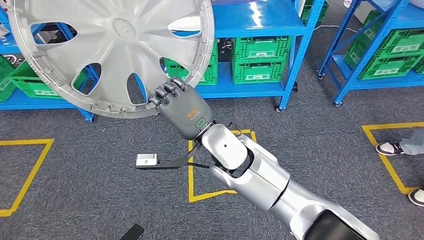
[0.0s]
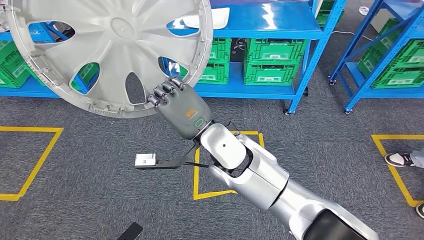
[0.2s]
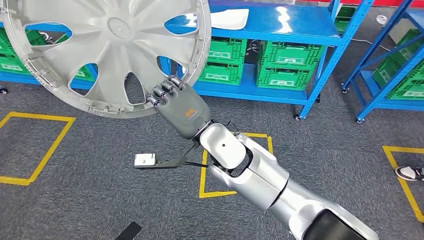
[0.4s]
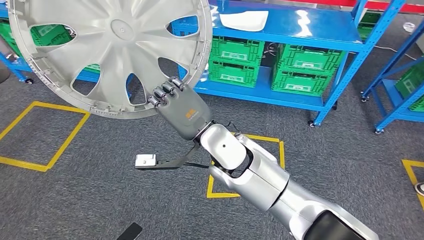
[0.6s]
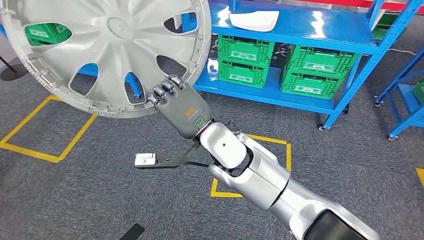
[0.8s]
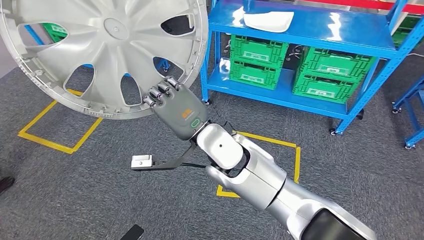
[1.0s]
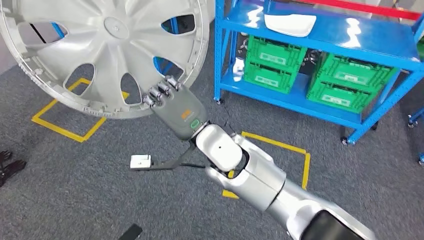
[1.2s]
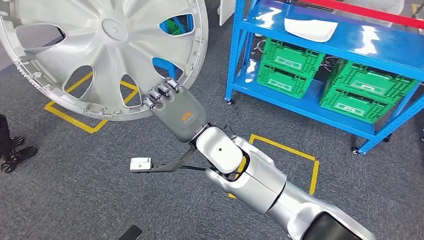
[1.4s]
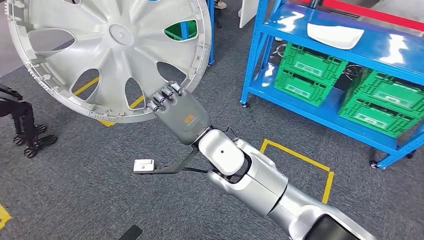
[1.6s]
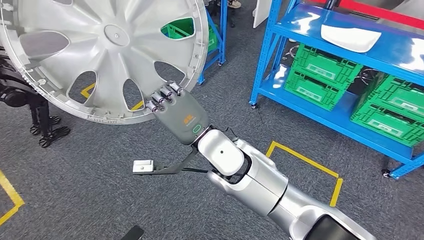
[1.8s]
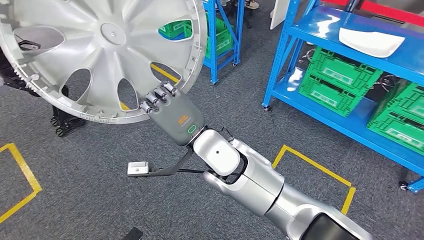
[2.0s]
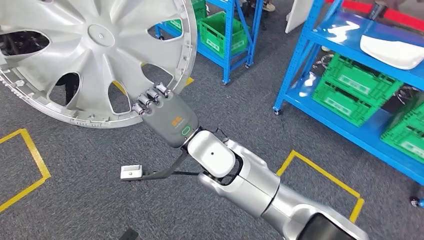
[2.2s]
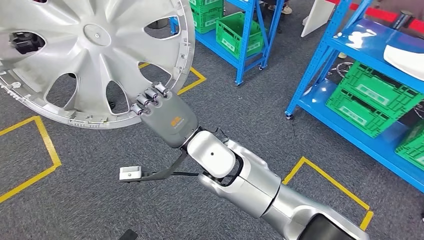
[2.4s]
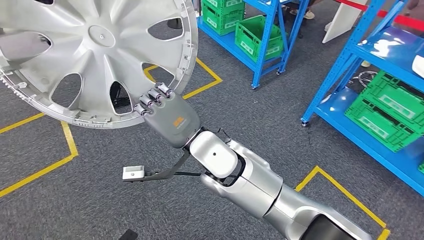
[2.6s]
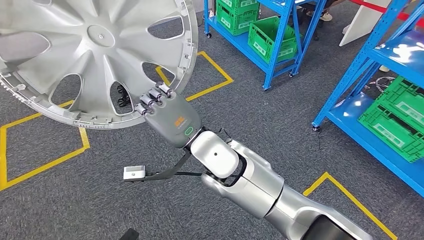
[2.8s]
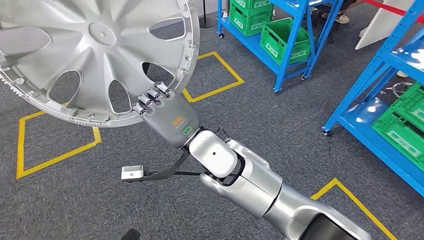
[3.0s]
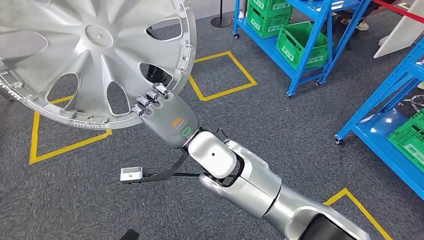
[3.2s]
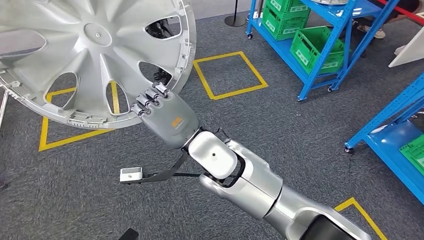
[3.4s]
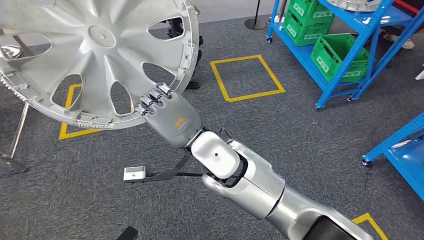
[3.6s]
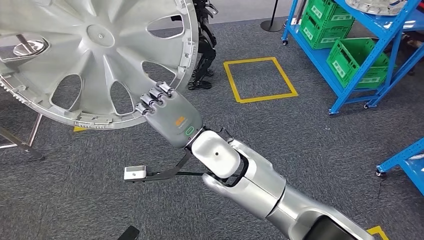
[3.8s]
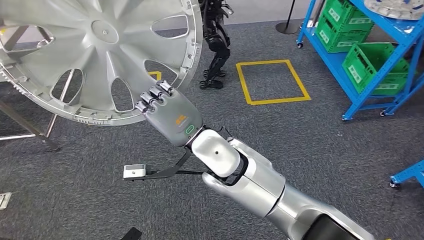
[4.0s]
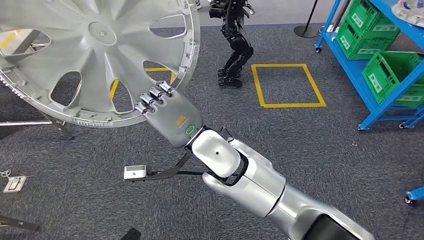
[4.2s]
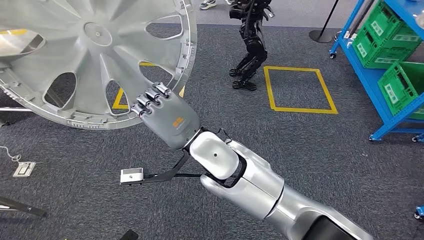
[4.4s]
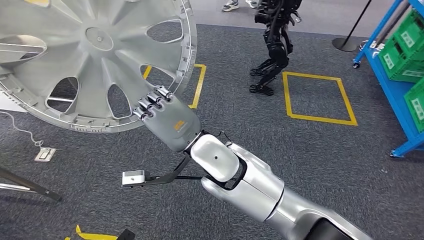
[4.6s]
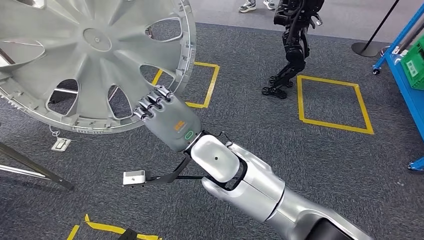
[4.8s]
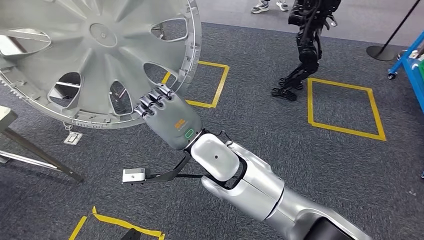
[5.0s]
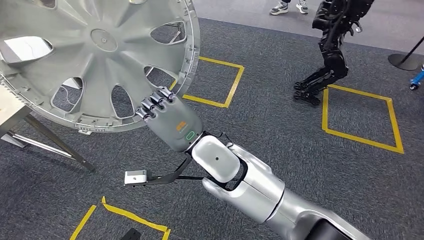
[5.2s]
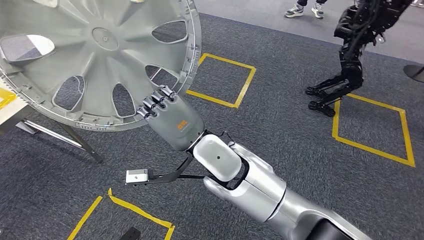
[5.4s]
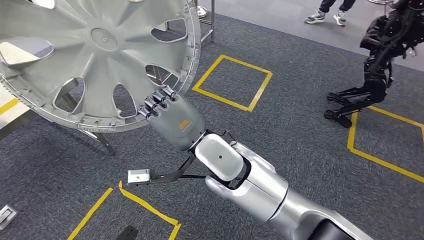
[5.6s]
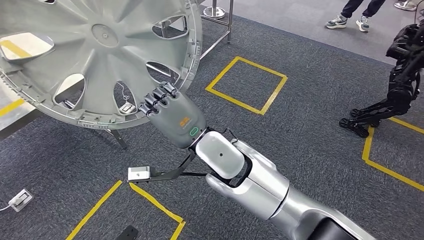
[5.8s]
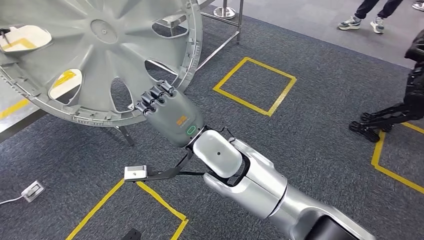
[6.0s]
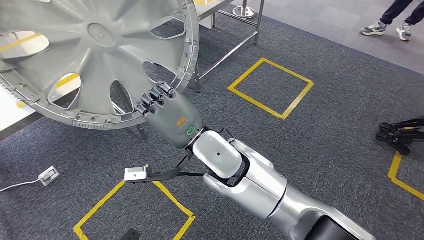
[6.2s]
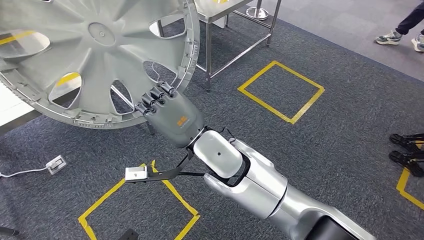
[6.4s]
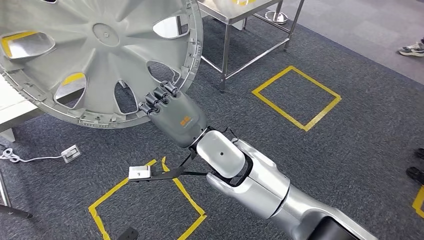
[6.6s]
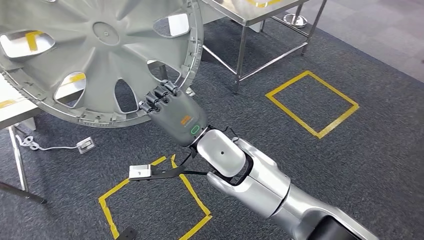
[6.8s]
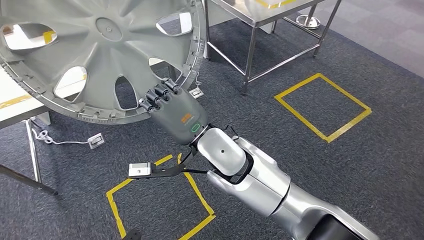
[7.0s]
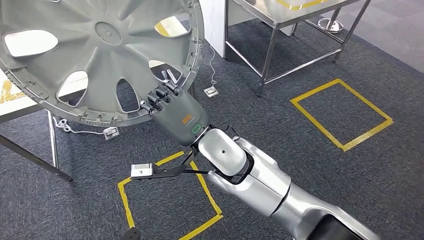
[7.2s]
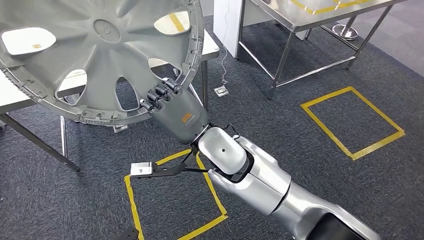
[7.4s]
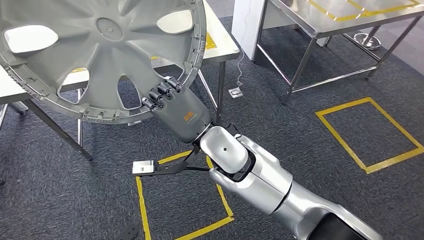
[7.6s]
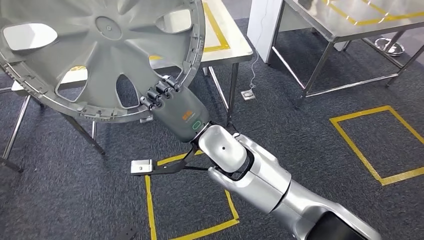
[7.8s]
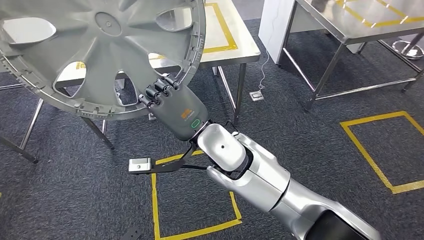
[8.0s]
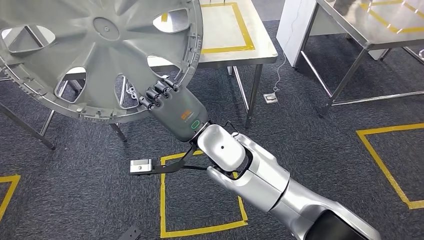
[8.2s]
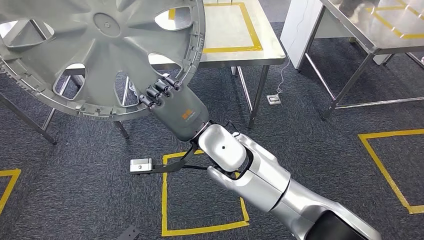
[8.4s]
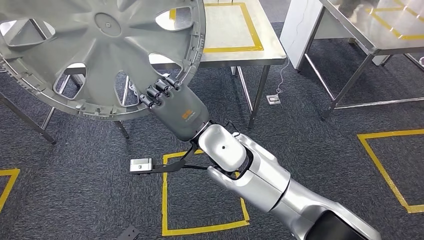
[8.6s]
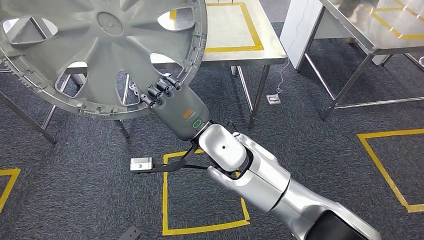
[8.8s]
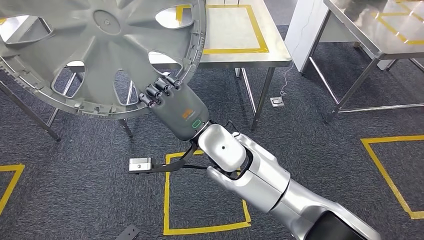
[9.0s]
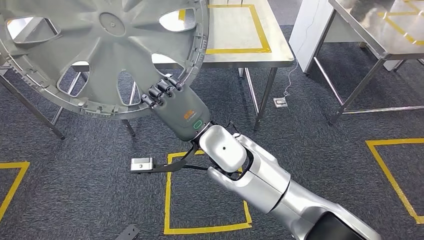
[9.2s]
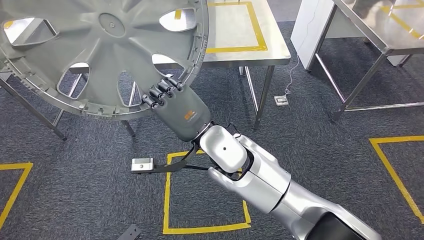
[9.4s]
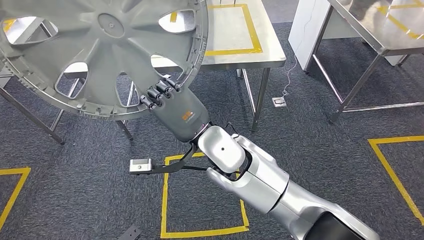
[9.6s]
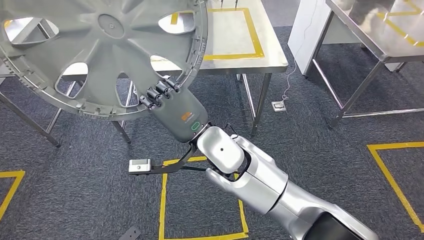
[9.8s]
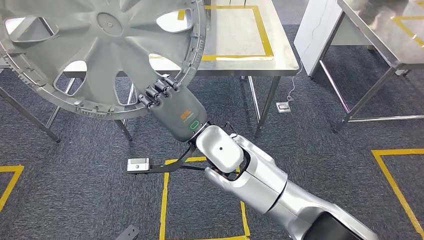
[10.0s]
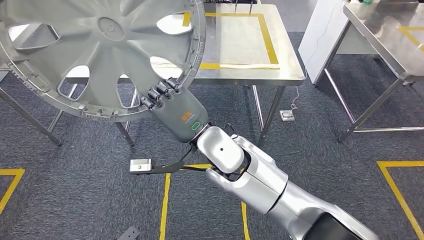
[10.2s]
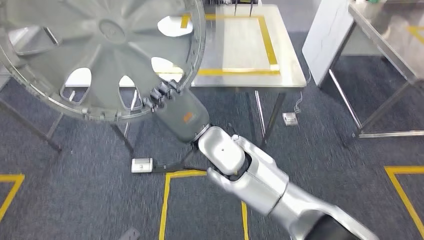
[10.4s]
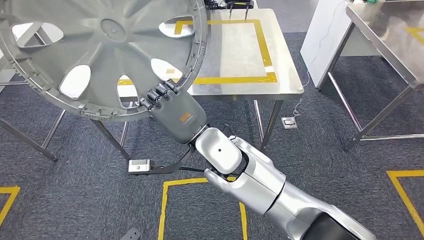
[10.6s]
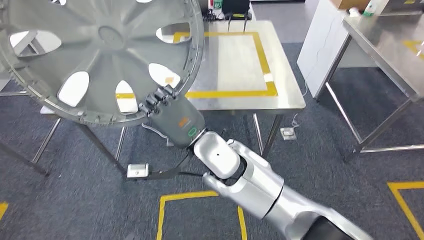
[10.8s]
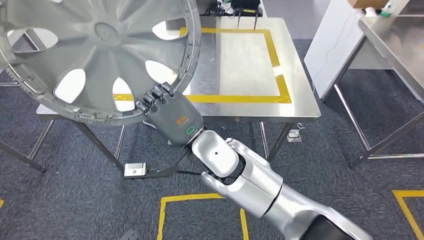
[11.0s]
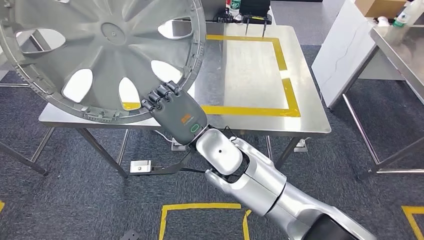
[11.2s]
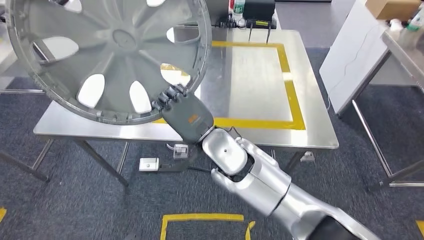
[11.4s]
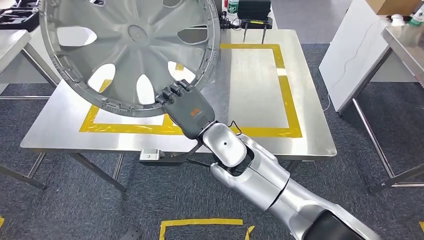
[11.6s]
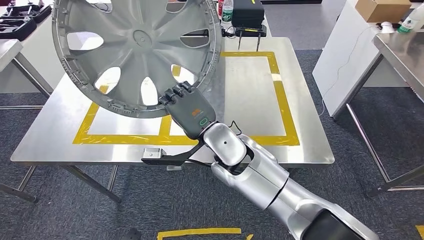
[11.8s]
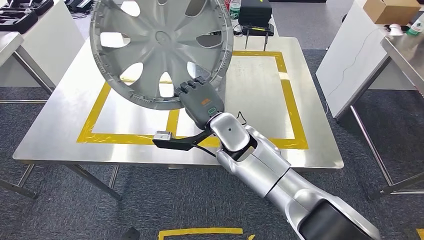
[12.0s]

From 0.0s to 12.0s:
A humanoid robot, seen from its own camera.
Step, from 0.0s to 11.2s: Move the large material to the workbench.

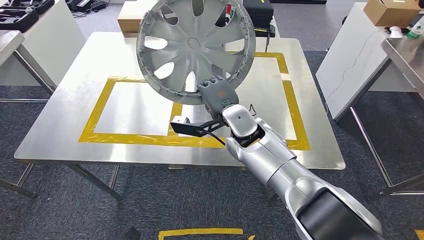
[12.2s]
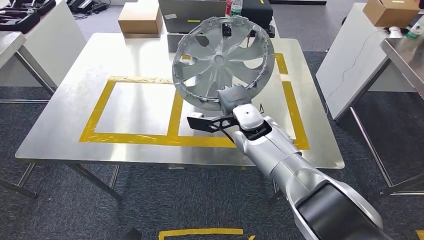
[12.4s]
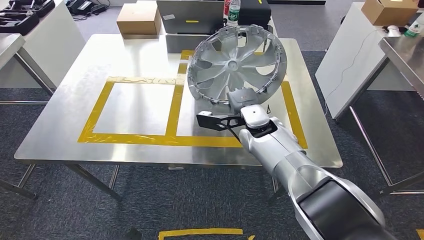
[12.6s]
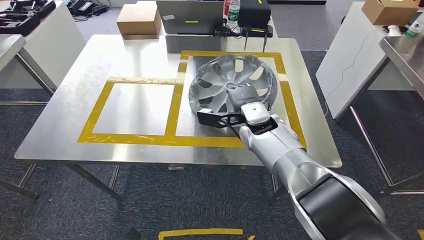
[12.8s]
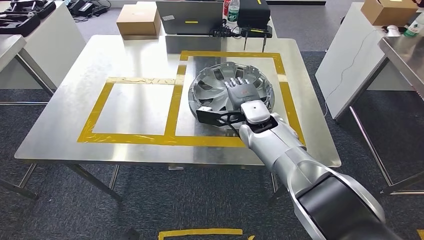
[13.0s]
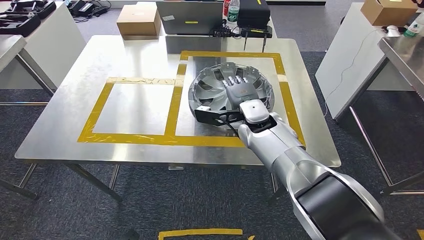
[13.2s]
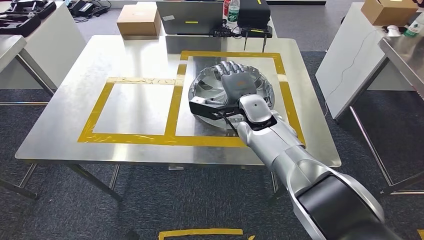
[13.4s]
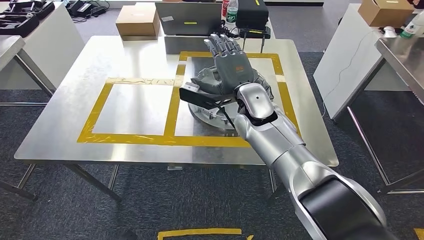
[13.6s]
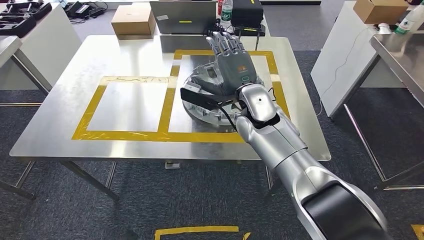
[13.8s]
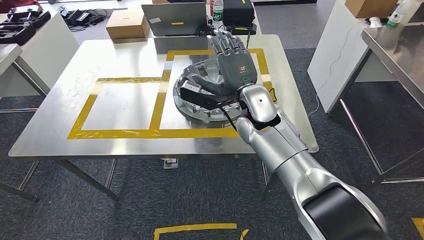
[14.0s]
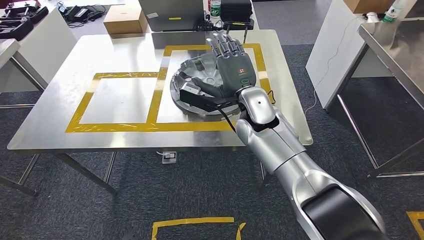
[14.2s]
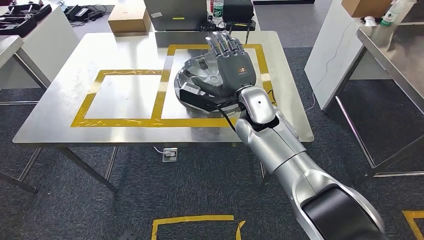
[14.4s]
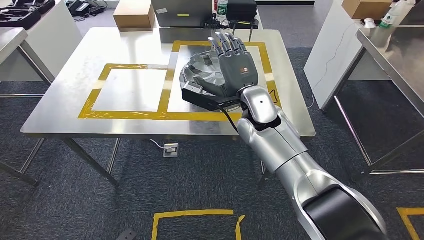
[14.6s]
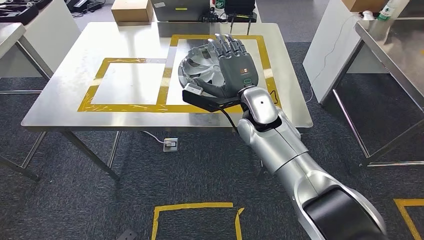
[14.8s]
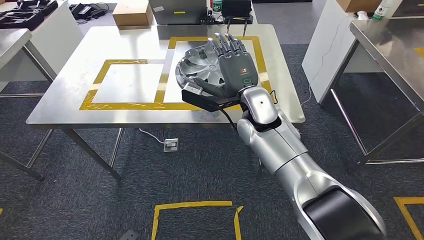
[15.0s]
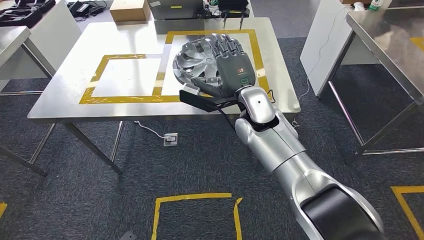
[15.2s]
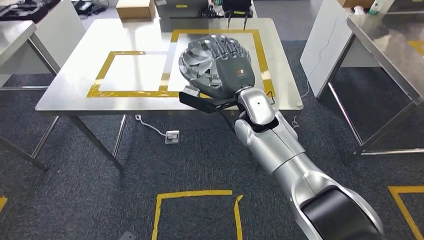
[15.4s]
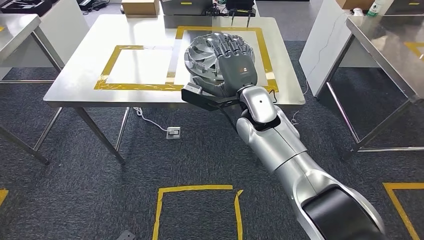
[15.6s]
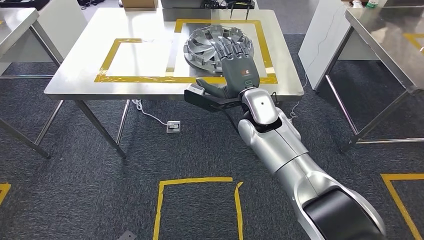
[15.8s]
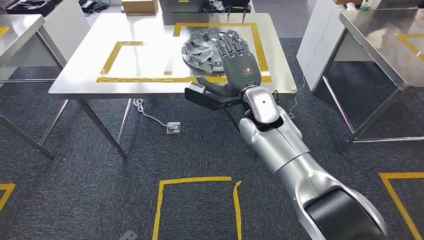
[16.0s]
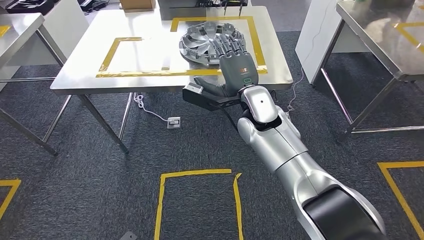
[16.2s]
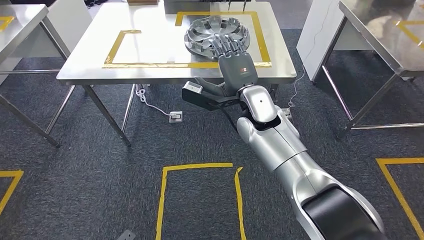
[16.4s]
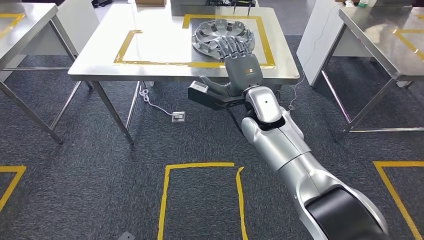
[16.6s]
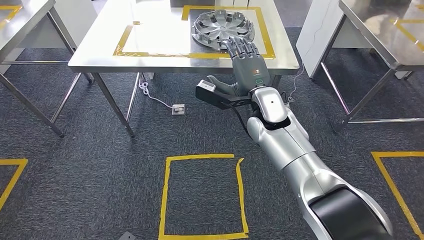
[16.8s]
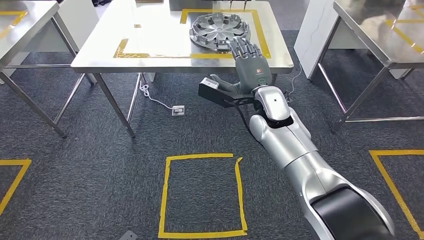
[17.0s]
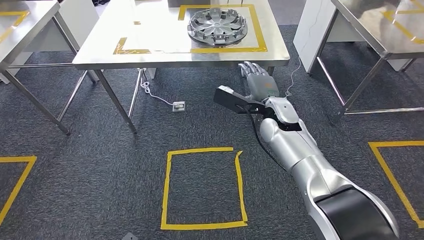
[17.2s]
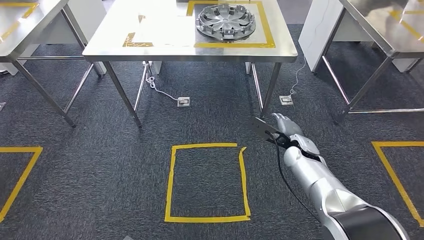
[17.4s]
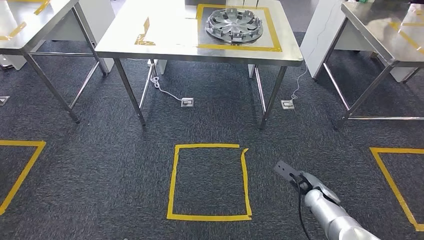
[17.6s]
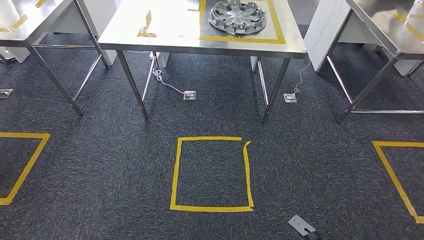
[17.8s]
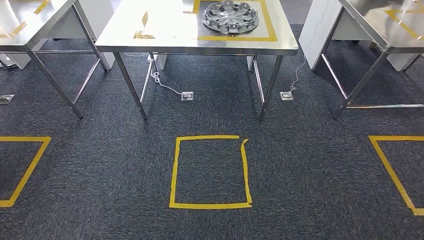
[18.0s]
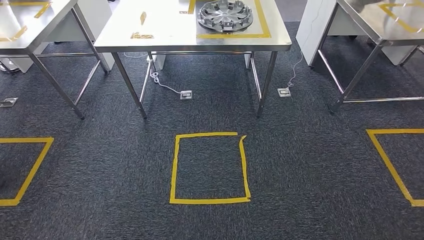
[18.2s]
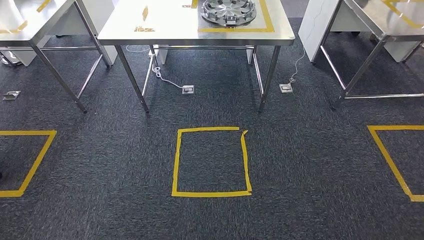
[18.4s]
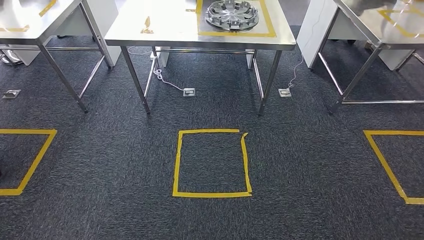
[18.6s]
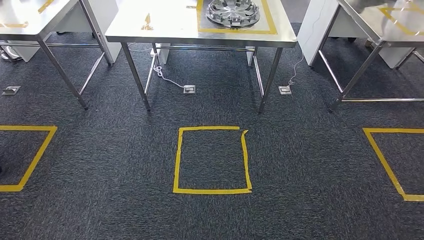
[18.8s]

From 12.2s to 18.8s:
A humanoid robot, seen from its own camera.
Step, from 12.2s to 13.4s: Insert the large material into the corresponding slot on the workbench.
Step, from 13.8s to 18.8s: Return to the initial position at the shelf.
